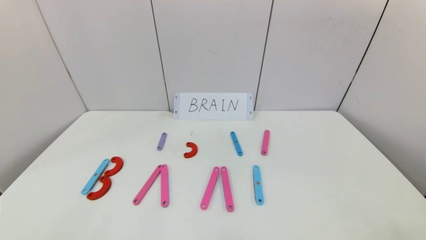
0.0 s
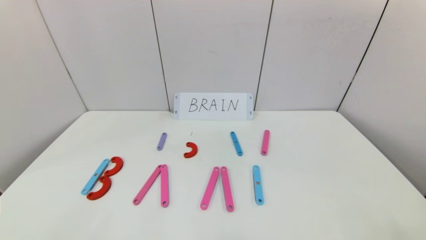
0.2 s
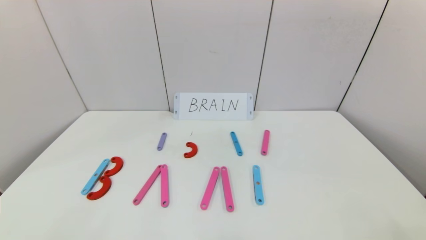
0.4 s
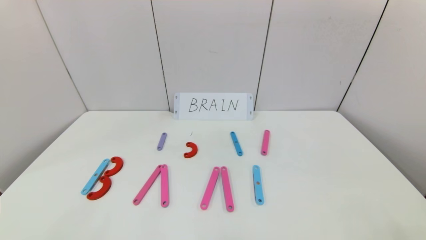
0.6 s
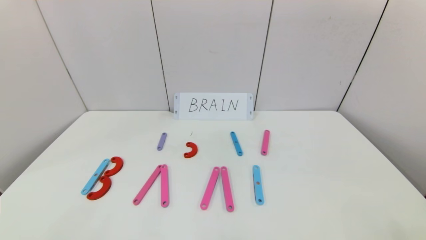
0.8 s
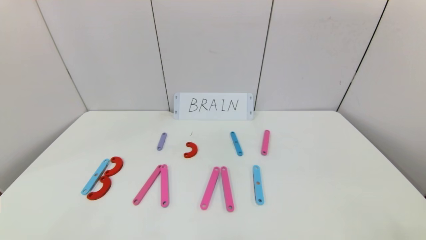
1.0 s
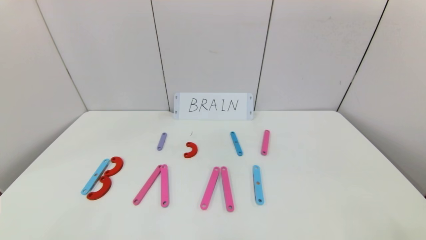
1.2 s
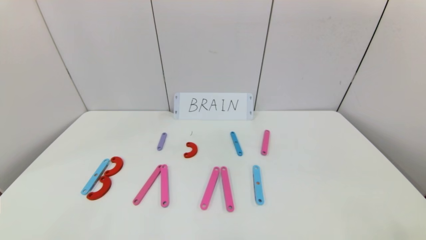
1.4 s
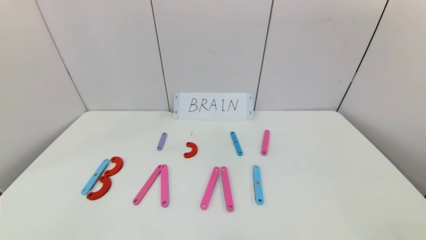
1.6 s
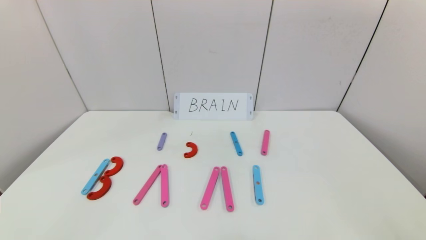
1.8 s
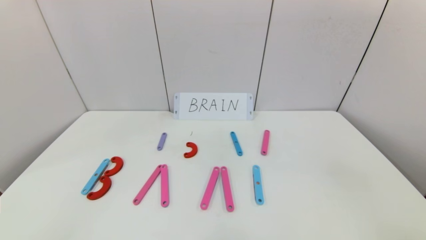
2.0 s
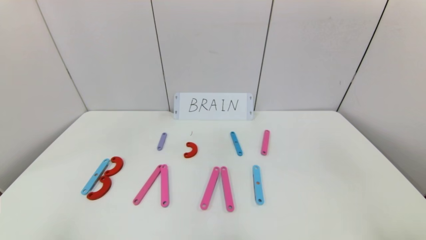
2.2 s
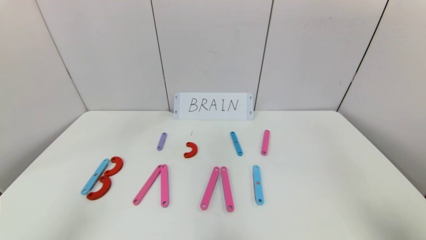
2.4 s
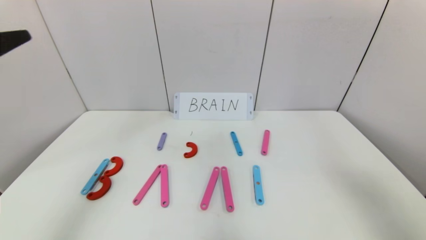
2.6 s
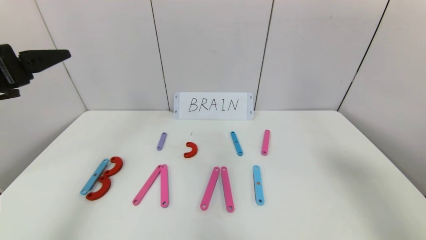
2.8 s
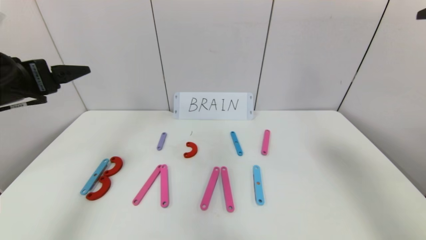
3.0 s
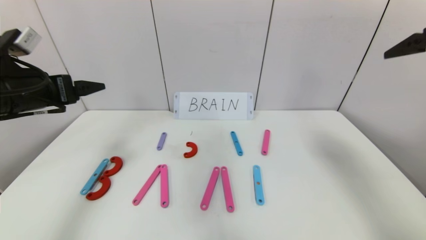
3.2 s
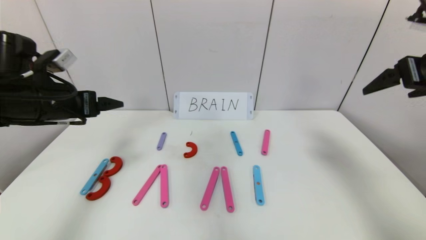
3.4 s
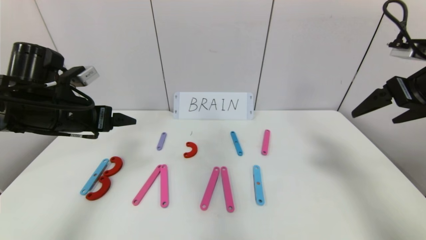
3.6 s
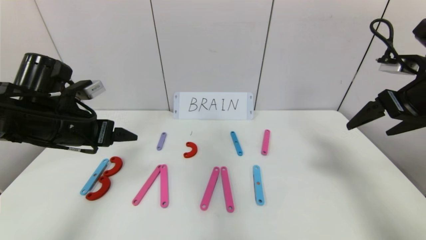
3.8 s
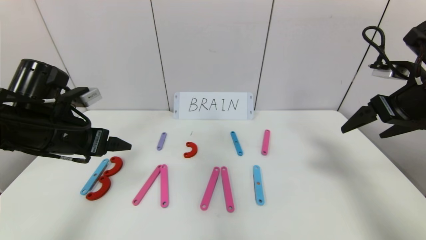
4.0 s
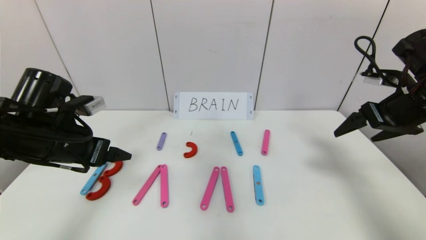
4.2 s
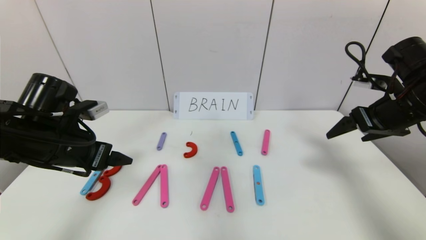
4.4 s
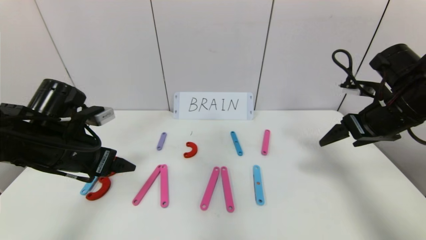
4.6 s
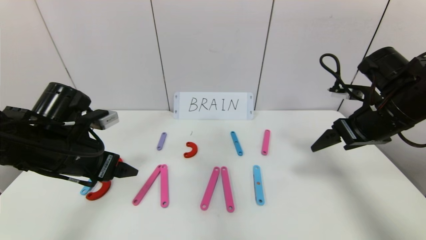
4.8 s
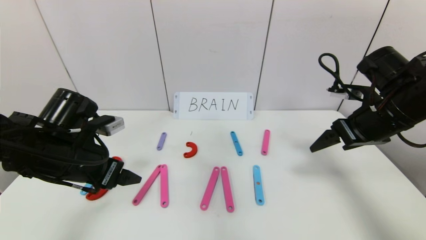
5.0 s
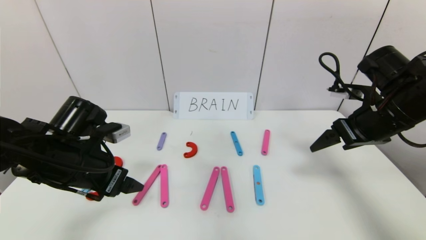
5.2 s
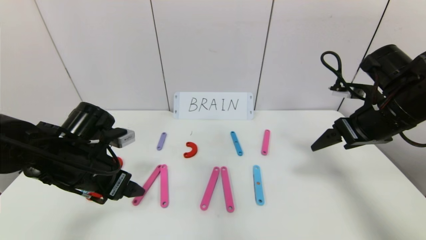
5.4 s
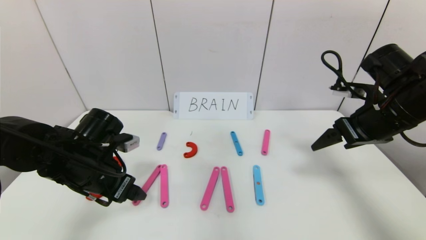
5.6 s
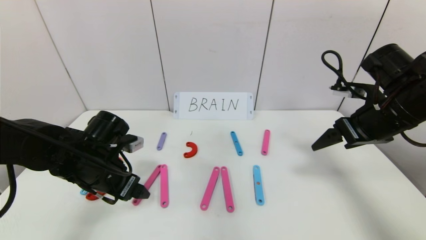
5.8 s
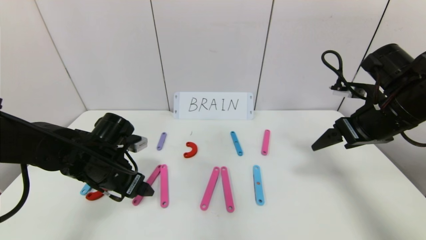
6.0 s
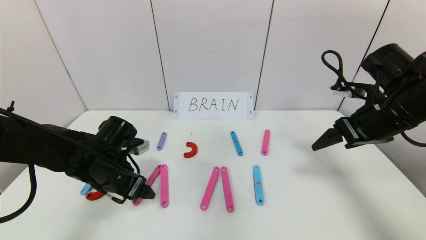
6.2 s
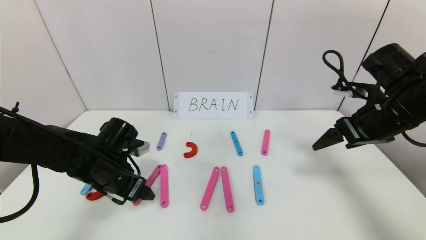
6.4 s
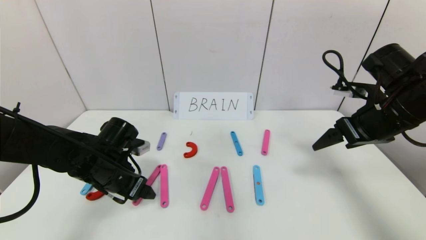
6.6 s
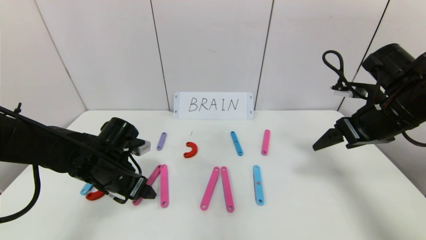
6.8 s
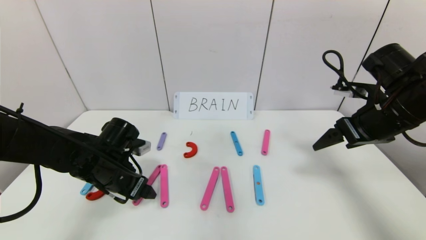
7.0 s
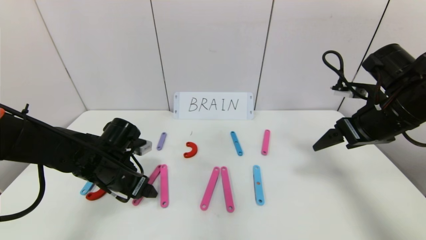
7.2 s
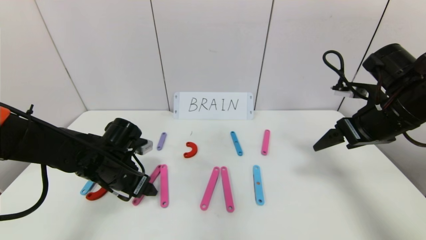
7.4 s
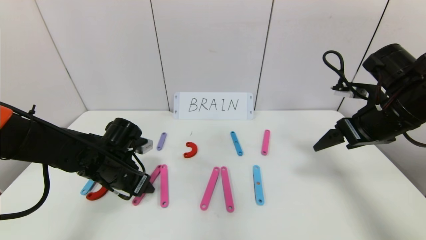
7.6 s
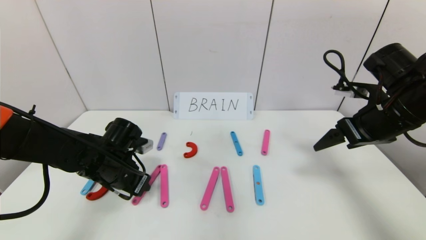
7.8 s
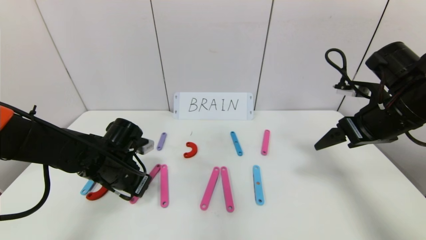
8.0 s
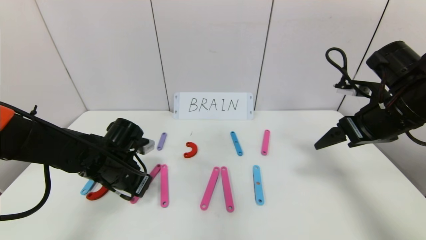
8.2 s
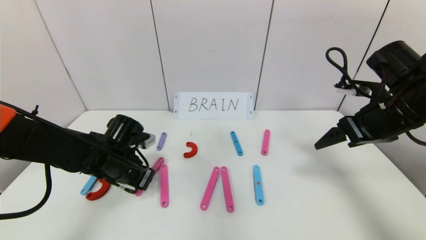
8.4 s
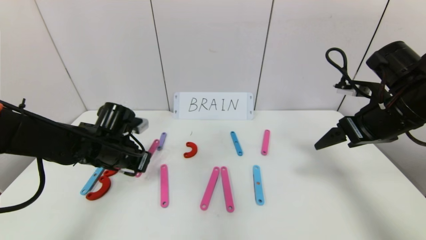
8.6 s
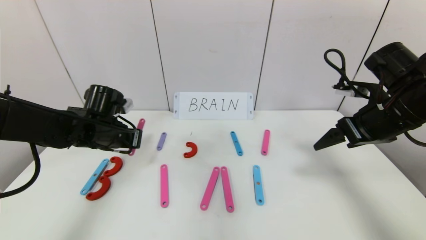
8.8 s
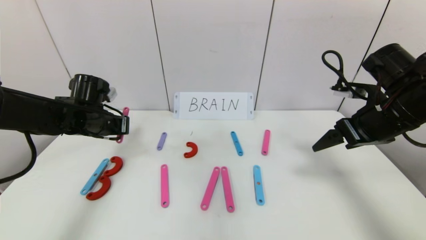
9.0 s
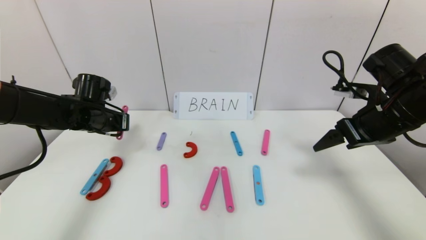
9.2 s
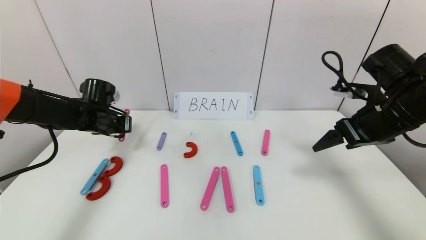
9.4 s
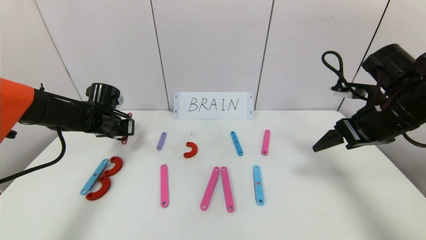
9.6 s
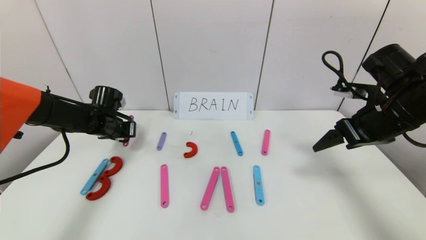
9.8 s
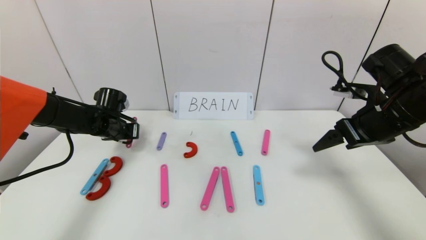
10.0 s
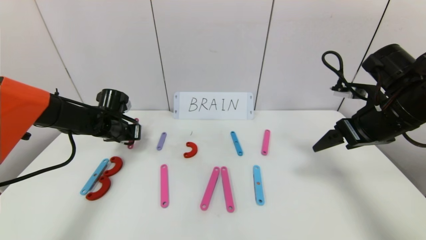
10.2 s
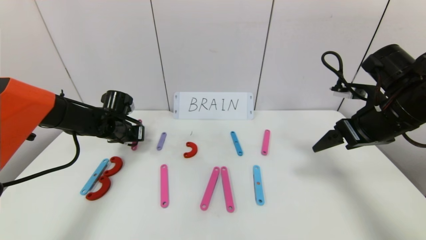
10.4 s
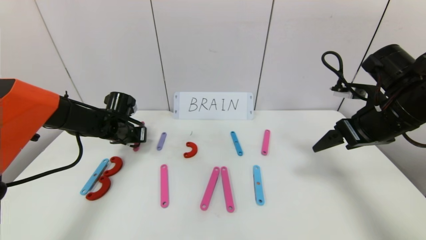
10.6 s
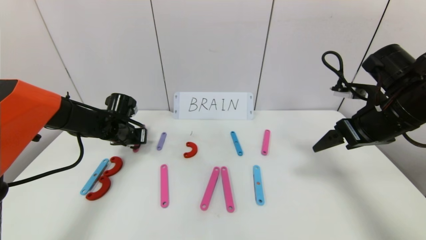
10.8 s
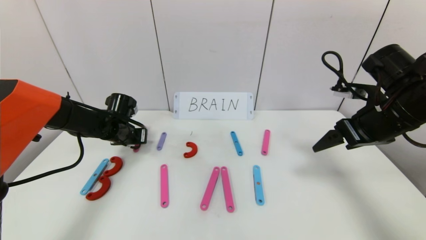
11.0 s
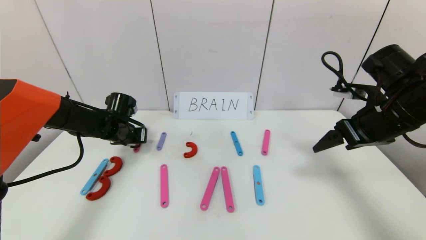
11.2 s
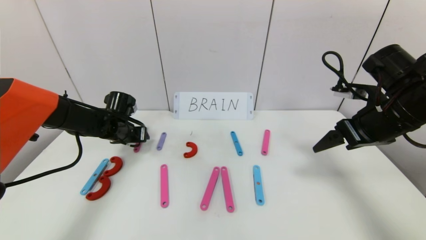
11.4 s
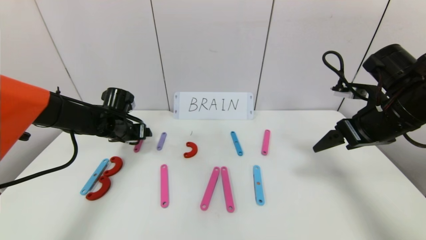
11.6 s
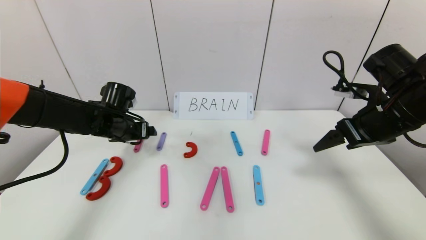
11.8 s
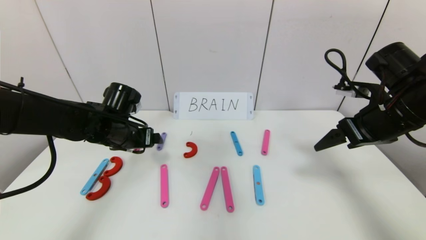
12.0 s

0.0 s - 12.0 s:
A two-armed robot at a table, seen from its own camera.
Task of the whole recording: rearrange the word baai as brain.
1.6 s - 3.0 s: The left gripper heads forward and upward, covering about 30 cm, while the right gripper moves upward and forward, about 40 cm.
3.0 s - 4.4 s: The left gripper moves downward, about 10 cm. The right gripper travels downward and forward by roughly 20 cm.
4.4 s - 6.0 s: The left gripper goes approximately 10 cm downward.
6.0 s - 7.6 s: The grippers move only a little.
7.6 s - 9.0 s: The left gripper travels forward, upward and to the left by about 10 cm, and closes up.
9.0 s - 10.4 s: The left gripper shifts roughly 10 cm downward and forward.
10.4 s - 12.0 s: The left gripper travels backward and to the right by some 10 cm, and opens its fingers.

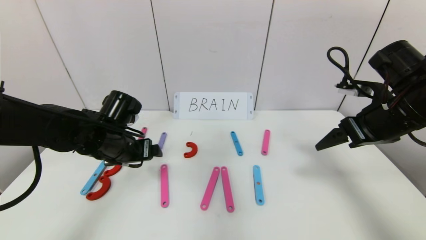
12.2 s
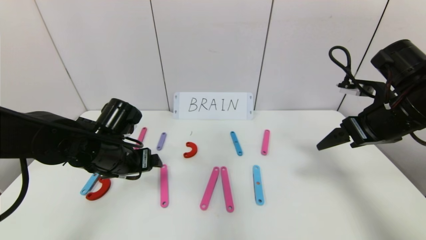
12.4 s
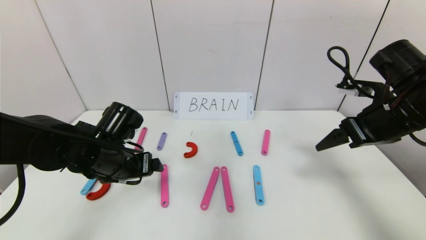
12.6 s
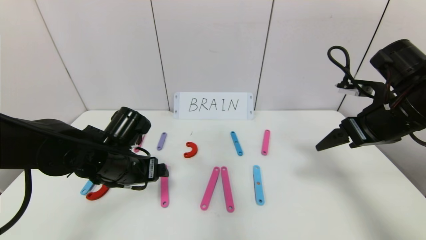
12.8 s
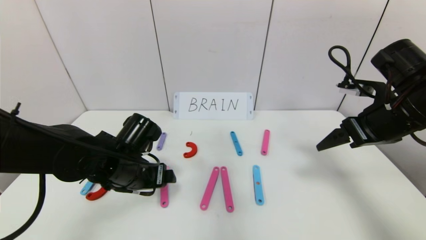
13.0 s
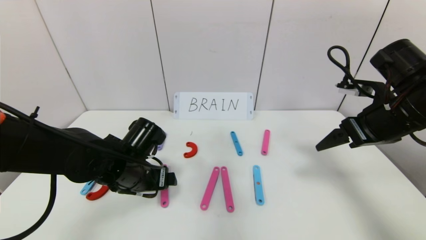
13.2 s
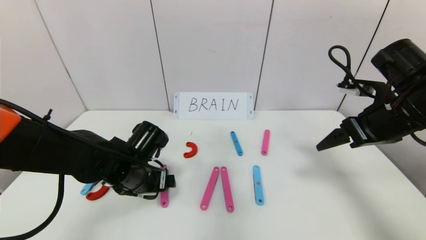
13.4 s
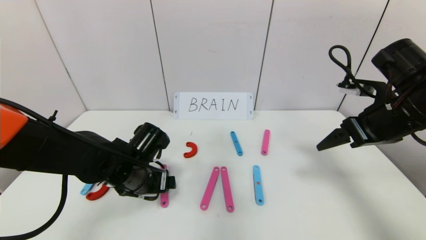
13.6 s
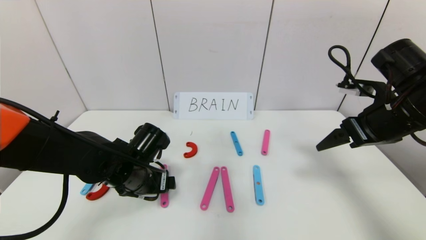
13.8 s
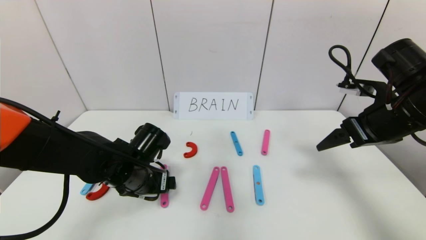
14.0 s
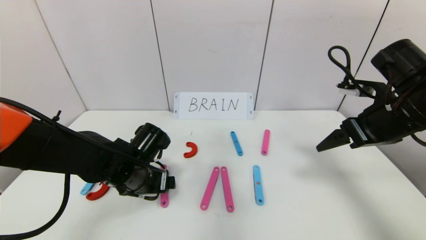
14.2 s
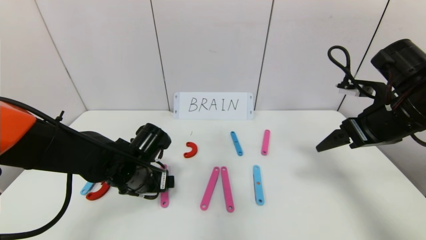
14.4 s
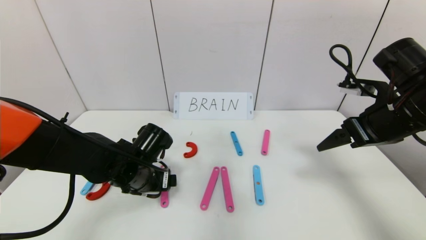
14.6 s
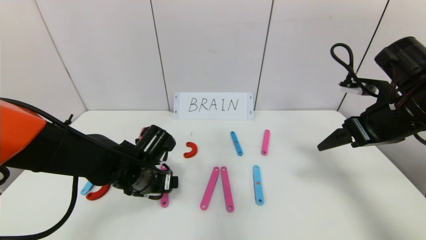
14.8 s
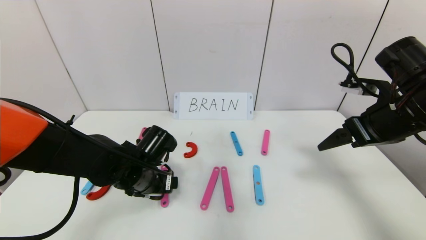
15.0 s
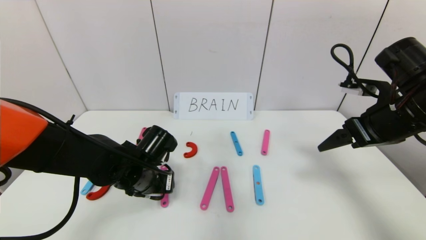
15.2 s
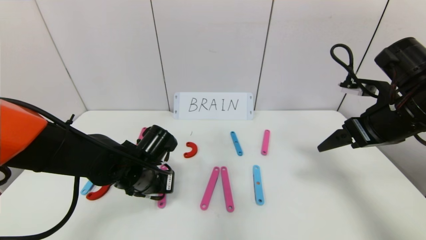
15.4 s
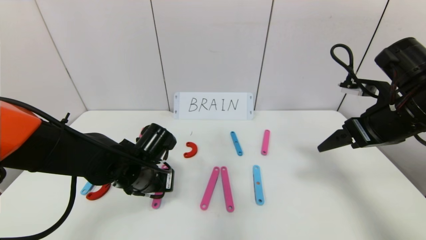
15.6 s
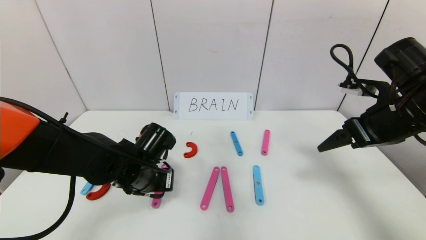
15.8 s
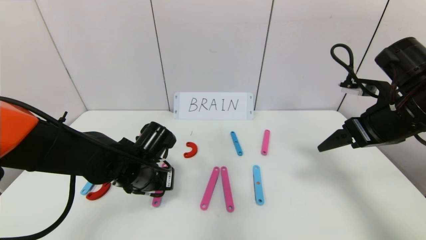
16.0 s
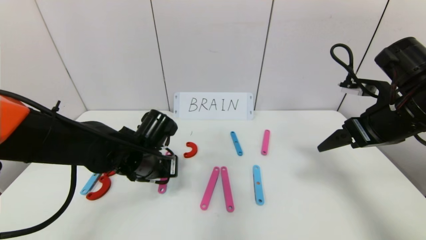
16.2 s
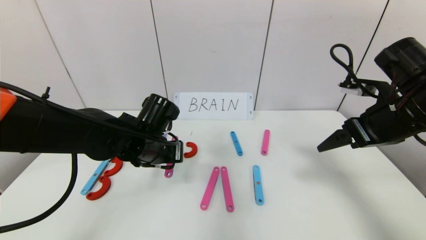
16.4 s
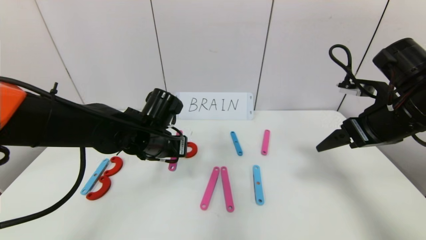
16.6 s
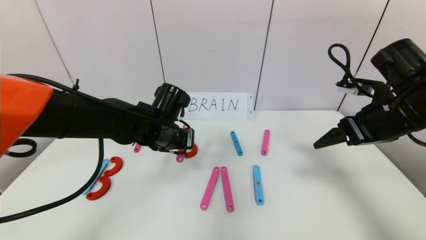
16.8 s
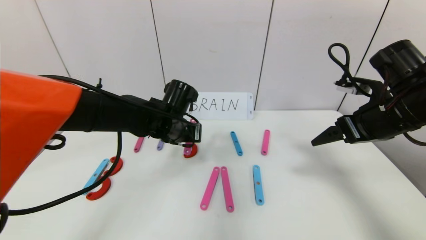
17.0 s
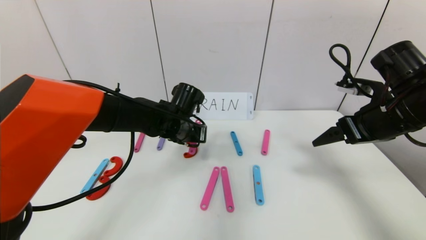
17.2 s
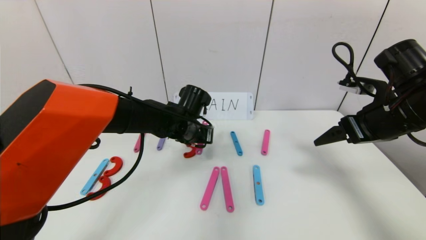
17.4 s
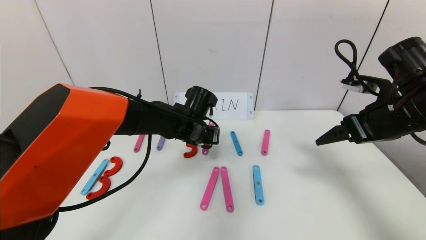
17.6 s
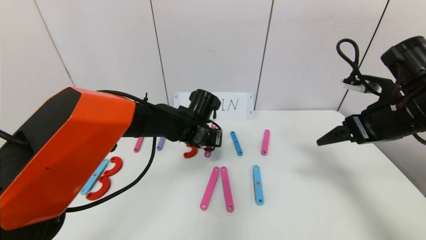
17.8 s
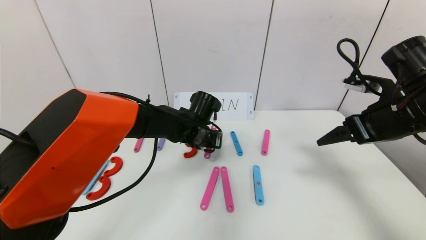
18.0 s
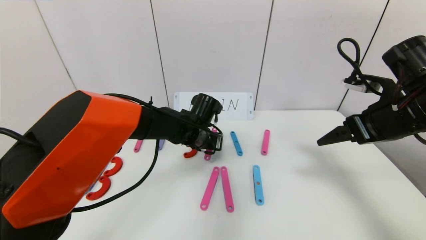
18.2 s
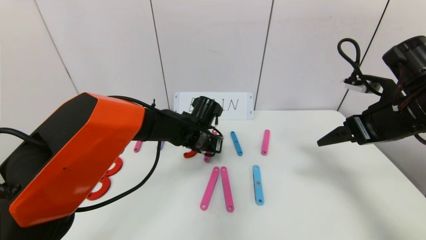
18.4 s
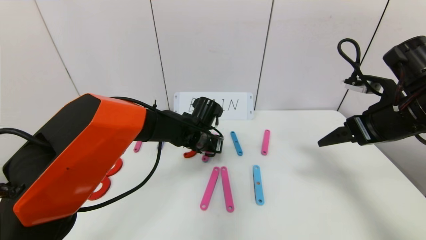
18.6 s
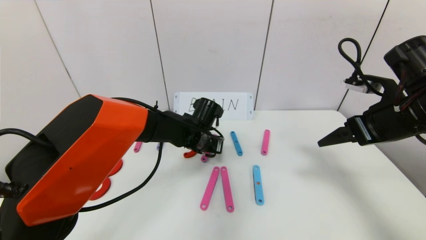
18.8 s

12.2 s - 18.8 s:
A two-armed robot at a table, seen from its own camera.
Task of the whole recording: rearrange the word baai as brain.
12.2 s - 13.8 s: The left gripper heads downward, covering some 5 cm.
13.8 s - 15.4 s: The left gripper closes.
15.4 s - 17.2 s: The left gripper shifts roughly 15 cm forward, to the right and upward.
17.2 s - 18.8 s: The left gripper shifts by about 5 cm, and opens up.
